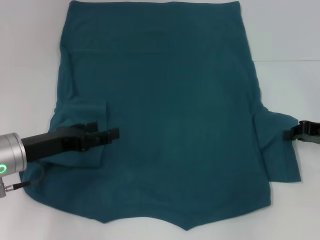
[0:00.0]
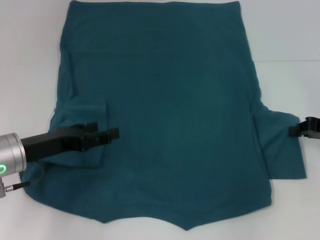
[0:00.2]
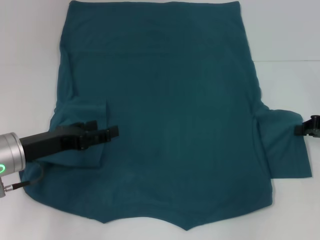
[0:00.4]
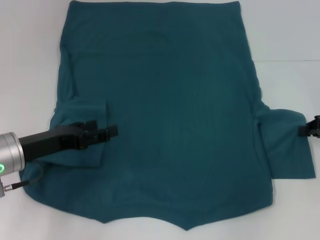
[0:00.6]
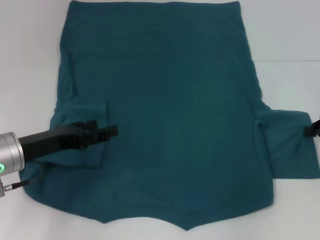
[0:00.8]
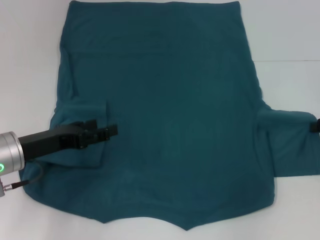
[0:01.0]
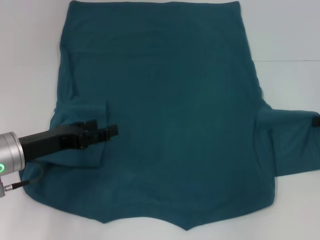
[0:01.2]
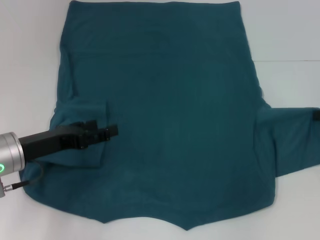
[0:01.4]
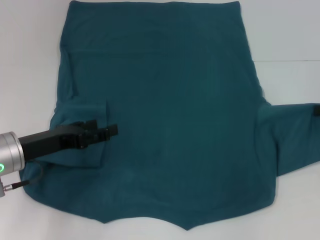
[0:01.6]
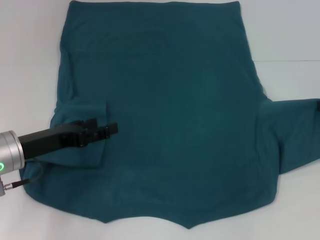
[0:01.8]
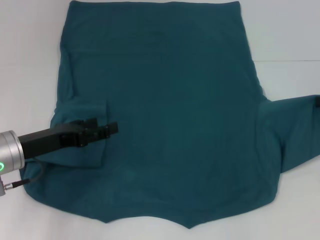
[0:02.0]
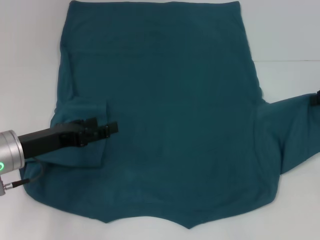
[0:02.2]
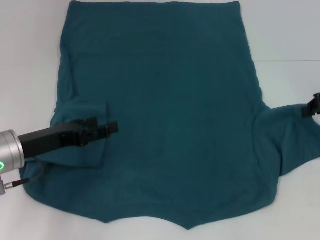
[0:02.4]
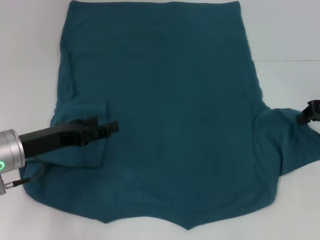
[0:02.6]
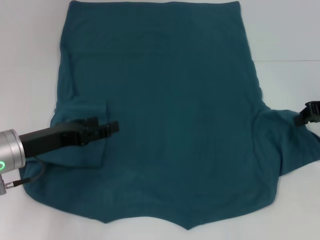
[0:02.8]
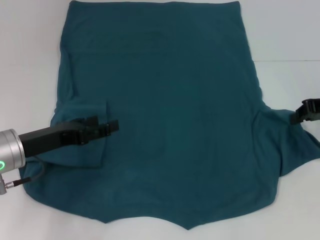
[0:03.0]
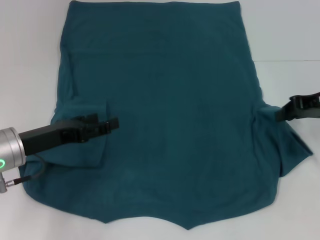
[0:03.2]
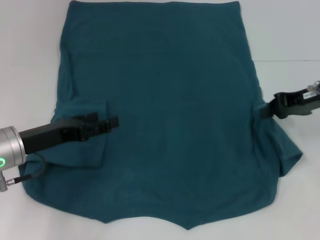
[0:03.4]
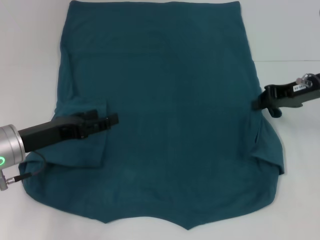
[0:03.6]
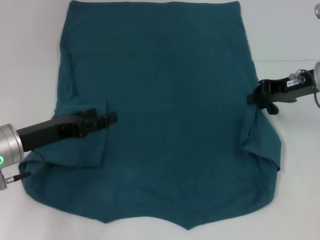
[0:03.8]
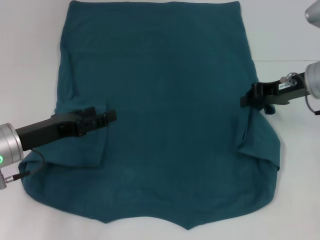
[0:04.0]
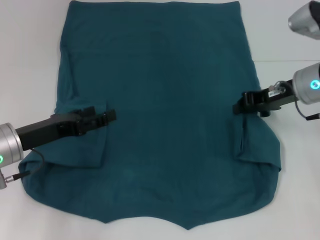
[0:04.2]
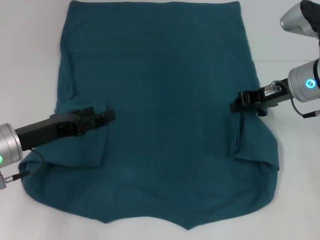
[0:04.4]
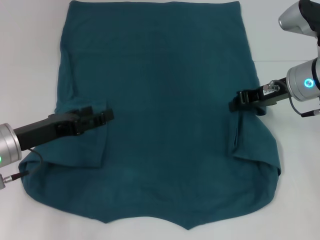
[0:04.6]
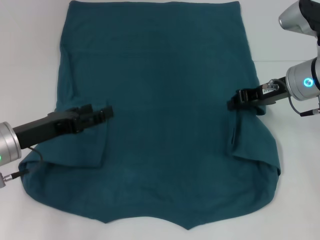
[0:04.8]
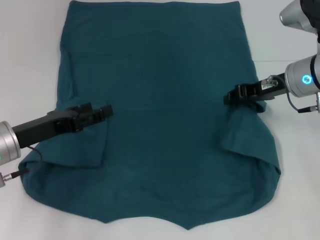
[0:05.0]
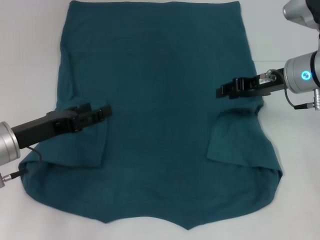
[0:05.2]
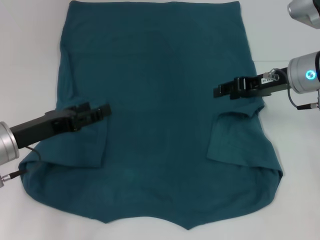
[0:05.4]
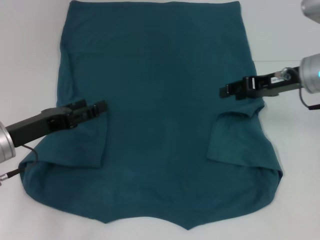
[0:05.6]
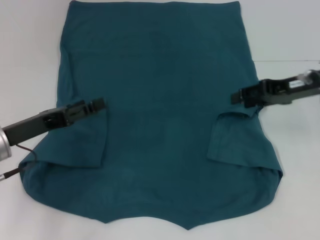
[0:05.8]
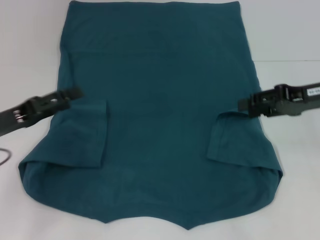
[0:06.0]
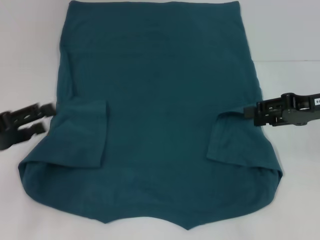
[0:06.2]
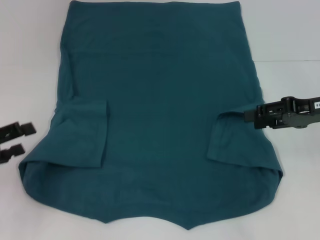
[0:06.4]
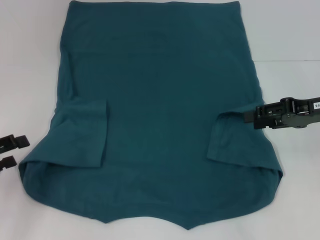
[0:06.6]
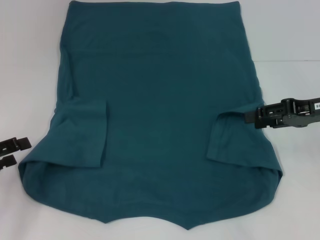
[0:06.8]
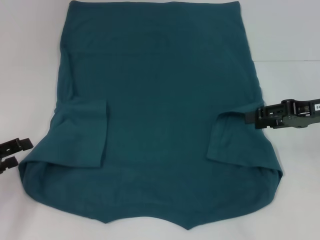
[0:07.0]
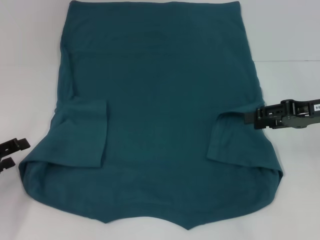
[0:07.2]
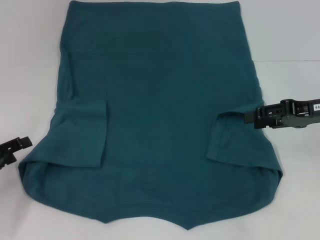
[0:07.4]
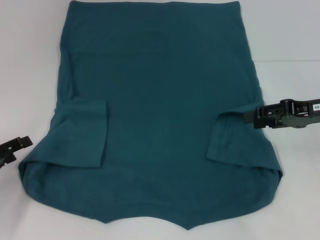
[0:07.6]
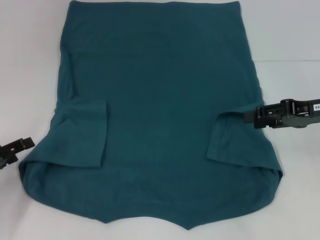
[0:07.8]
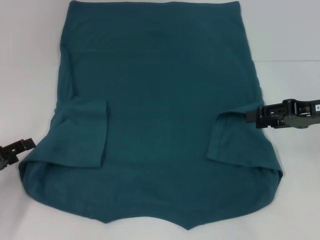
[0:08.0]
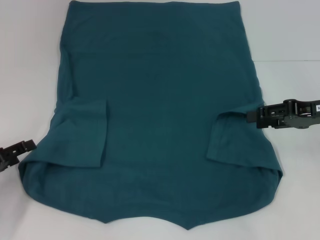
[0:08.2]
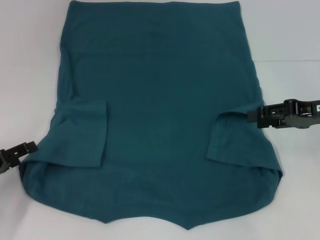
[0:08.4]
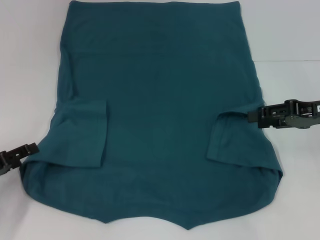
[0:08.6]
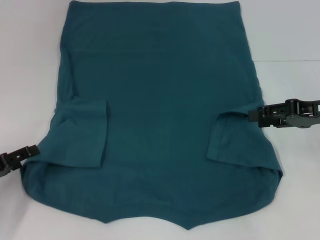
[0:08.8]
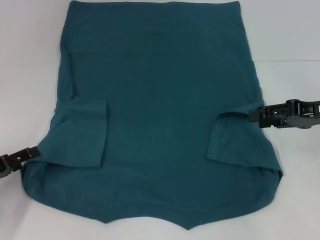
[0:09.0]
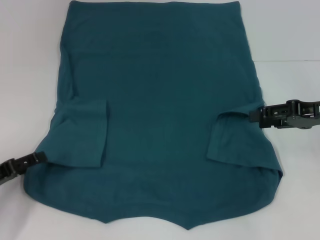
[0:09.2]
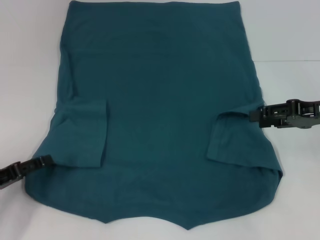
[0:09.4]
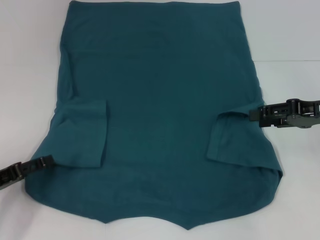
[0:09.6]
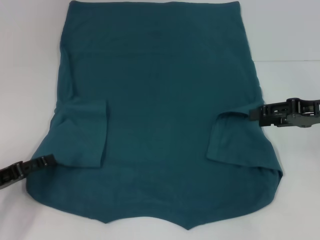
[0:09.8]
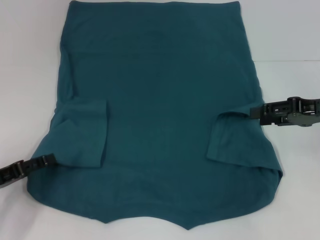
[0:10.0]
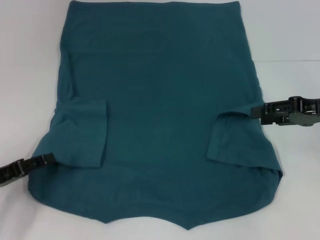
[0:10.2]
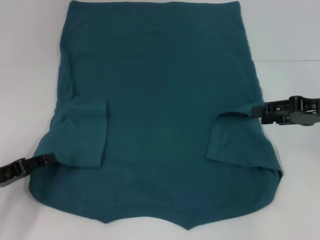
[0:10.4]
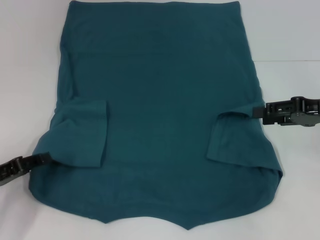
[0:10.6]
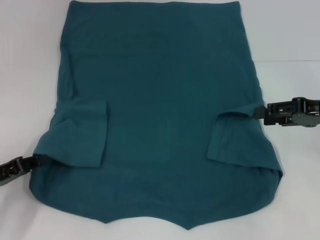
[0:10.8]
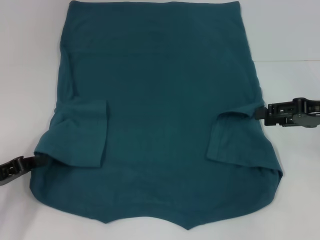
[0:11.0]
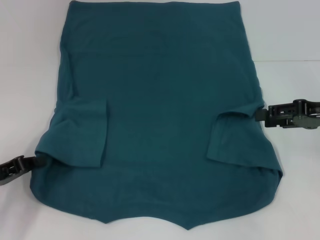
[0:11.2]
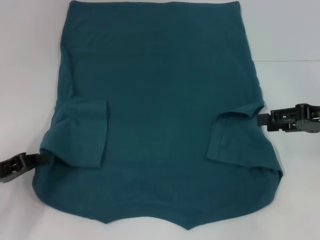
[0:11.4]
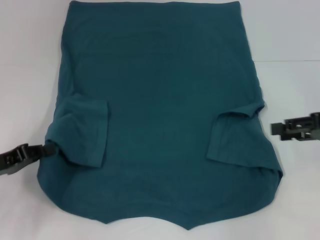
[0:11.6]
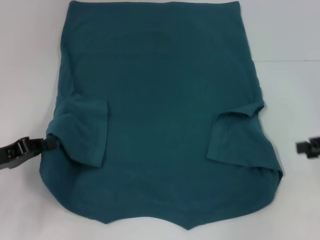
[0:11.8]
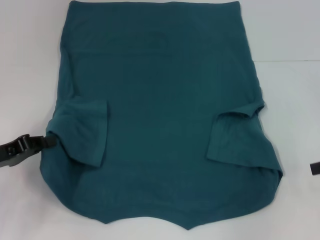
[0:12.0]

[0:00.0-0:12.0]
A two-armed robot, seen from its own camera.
Step, 0:00.0 to 0:06.2: Fold the bottom right sleeve to the right.
0:00.0 to 0:01.6: The right gripper shifts by roughly 5 cm.
0:01.6 to 0:03.0: The right gripper goes about 5 cm to the left.
0:03.0 to 0:04.4: The right gripper is displaced to the left by about 10 cm.
0:04.4 to 0:06.0: The right gripper travels to the right by about 5 cm, and opens up.
0:06.0 to 0:07.6: The left gripper moves to the left and downward, approximately 10 cm.
0:07.6 to 0:10.4: The grippers stay close to where they were, moving slightly.
0:10.4 to 0:12.0: The left gripper closes, while the right gripper heads to the right, covering roughly 5 cm.

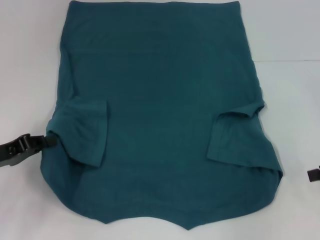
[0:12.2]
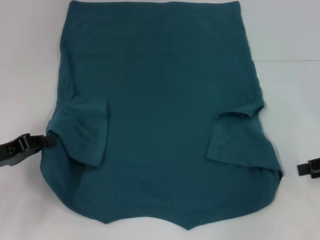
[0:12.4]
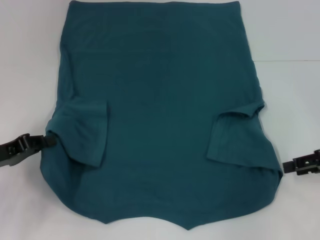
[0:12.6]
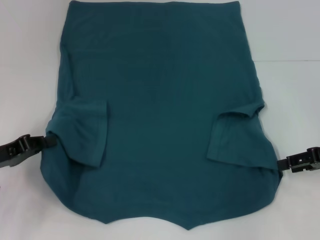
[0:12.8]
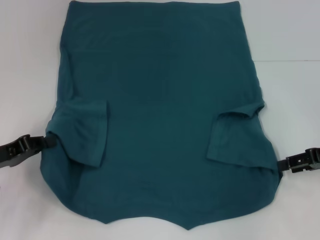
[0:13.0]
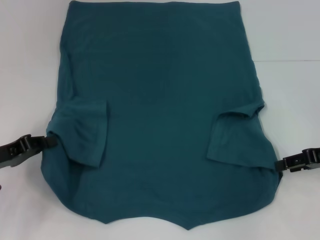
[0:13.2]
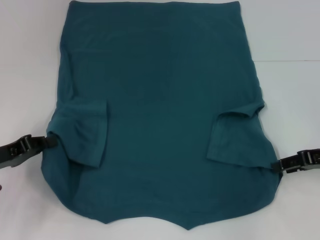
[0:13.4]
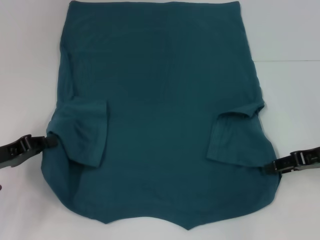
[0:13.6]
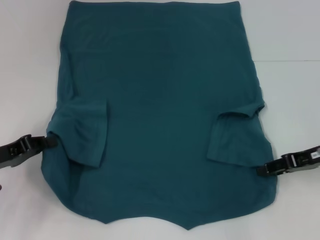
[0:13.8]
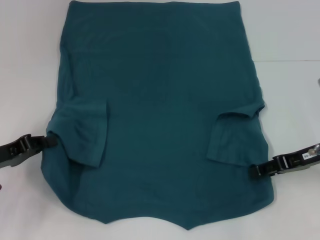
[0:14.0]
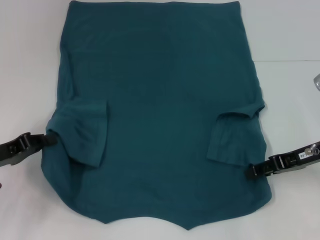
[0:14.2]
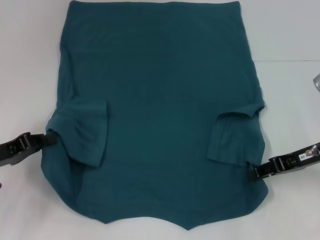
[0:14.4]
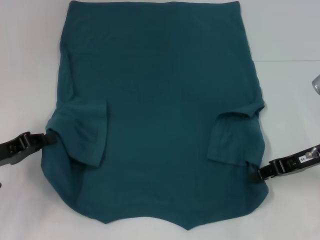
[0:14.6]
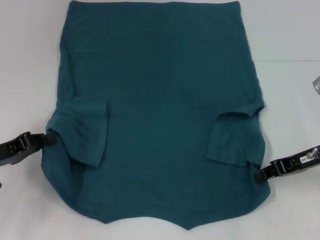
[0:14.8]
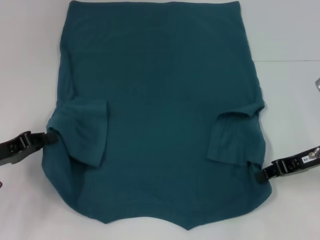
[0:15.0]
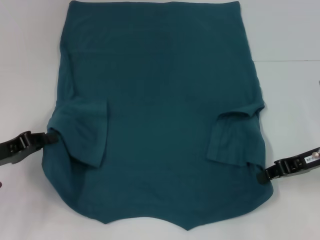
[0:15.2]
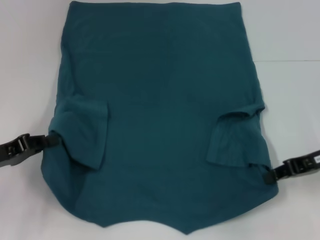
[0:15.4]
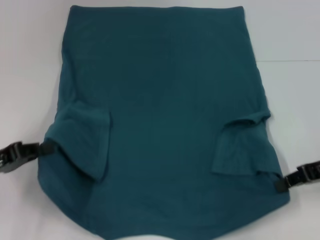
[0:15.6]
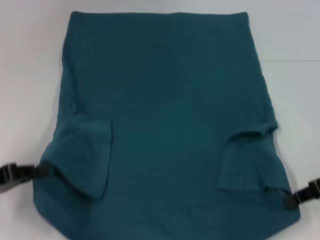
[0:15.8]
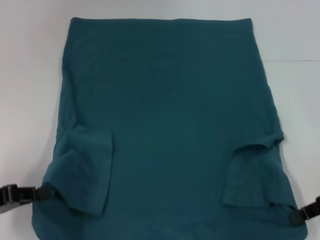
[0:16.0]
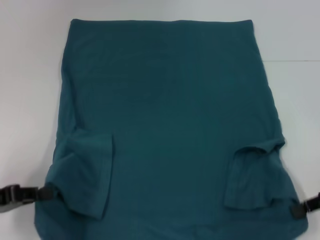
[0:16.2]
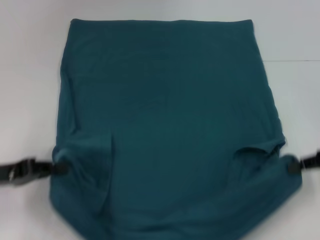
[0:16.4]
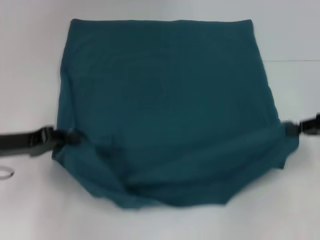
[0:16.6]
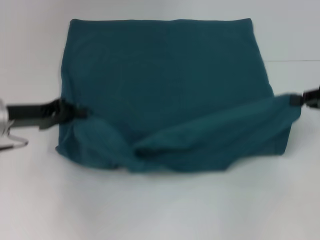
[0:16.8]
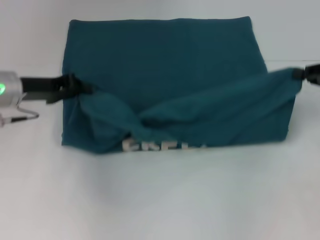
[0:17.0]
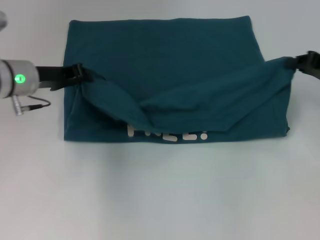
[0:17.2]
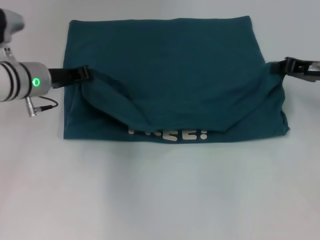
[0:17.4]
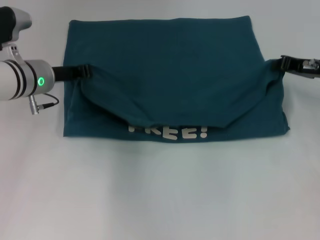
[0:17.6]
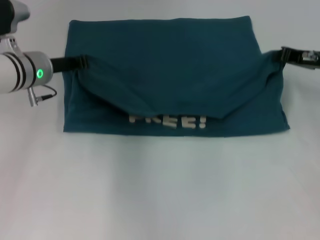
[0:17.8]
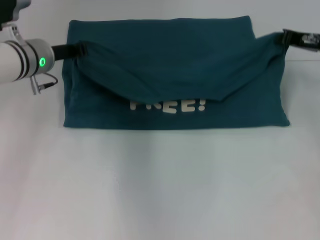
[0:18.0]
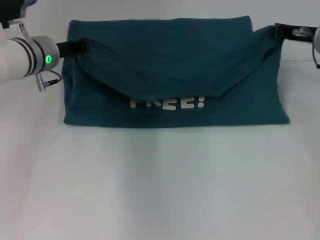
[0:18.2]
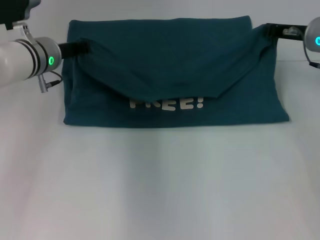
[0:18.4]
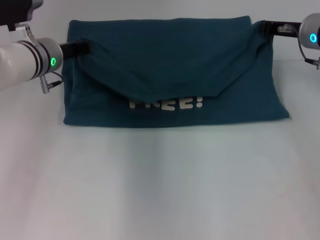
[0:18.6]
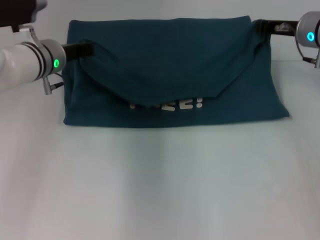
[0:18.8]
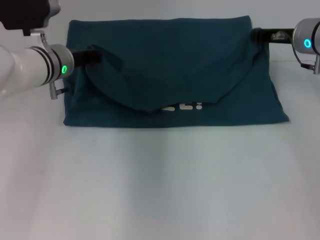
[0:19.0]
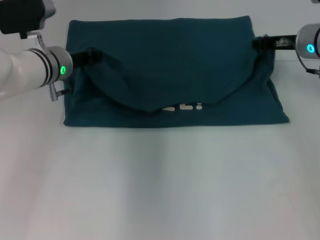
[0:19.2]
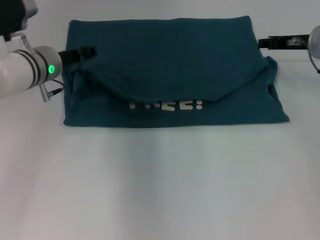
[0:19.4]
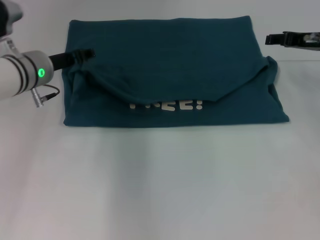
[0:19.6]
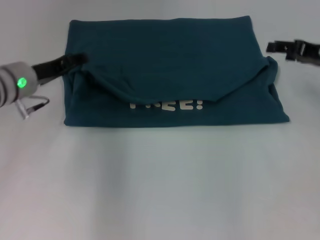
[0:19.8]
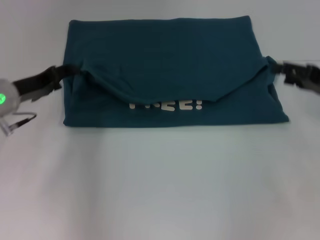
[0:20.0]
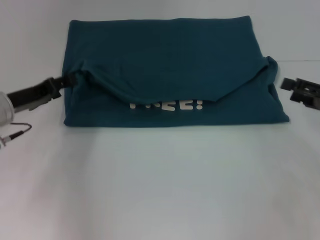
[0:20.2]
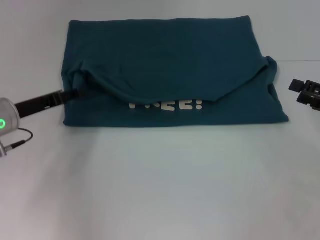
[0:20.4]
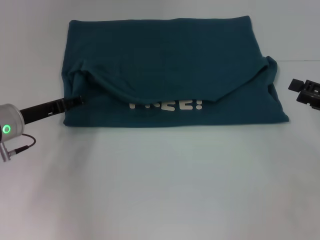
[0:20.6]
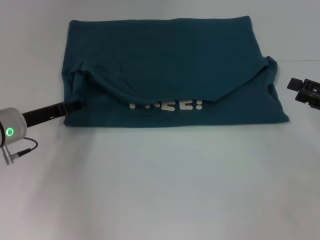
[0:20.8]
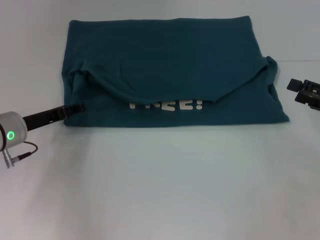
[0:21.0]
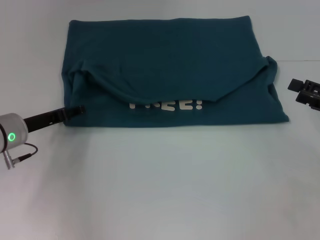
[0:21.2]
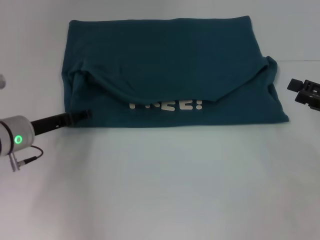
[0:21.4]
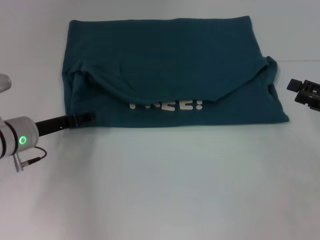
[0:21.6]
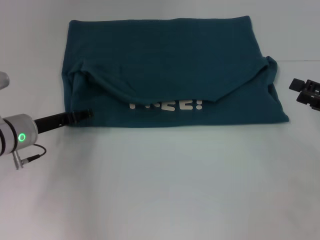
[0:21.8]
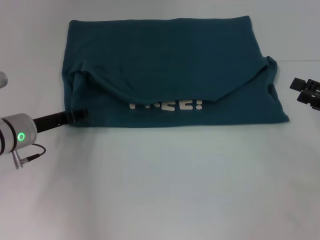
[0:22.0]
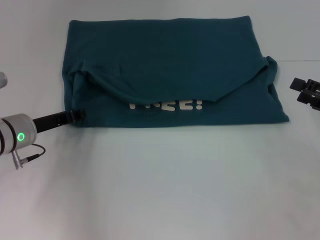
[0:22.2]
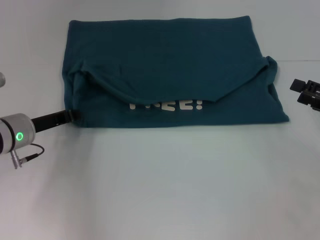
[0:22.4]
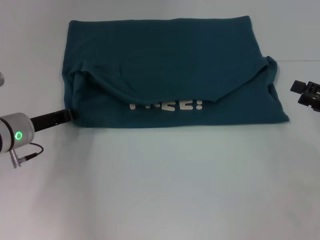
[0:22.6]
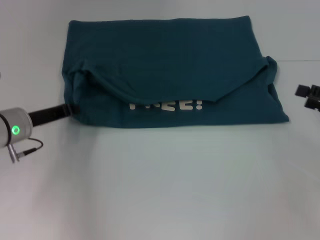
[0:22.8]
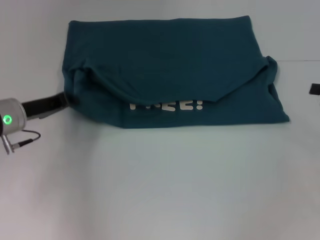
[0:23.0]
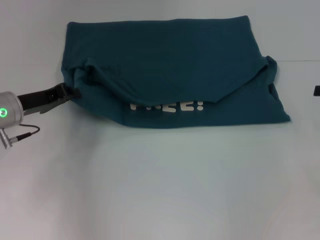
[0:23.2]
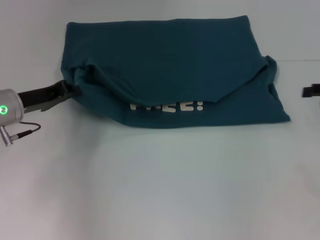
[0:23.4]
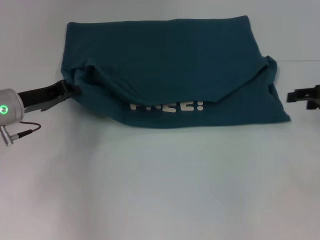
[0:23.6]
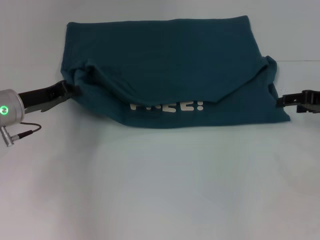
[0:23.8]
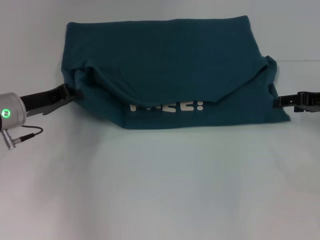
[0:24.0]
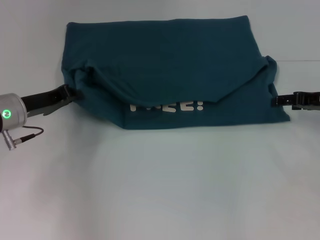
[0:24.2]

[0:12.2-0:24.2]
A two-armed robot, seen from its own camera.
Step, 0:13.0 to 0:15.6: Grab the bottom right corner with your right hand.
Step, 0:15.8 to 0:19.8: Fold the clothes to the left.
Step, 0:15.8 to 0:19.8: Fold the clothes to the right.
0:12.2 to 0:13.8: The right gripper is displaced to the left by roughly 10 cm.
0:13.8 to 0:15.2: The right gripper closes its fingers.
0:15.2 to 0:16.6: The right gripper heads to the right, covering roughly 5 cm.
0:16.6 to 0:18.2: The left gripper shifts roughly 15 cm forward and to the right, while the right gripper shifts roughly 15 cm forward and to the left.
0:18.2 to 0:19.8: The left gripper heads backward, covering some 5 cm, and opens, while the right gripper shifts by some 5 cm, and opens.
0:19.8 to 0:21.2: The right gripper travels backward by some 10 cm, while the left gripper travels downward by some 5 cm.
0:21.2 to 0:22.6: The left gripper closes up.
0:22.6 to 0:24.2: The right gripper travels forward by about 10 cm.
